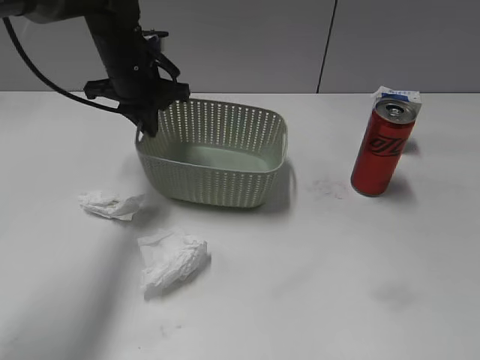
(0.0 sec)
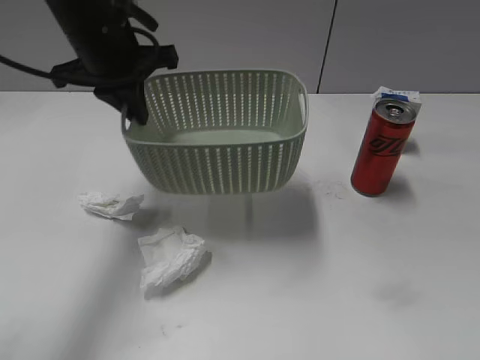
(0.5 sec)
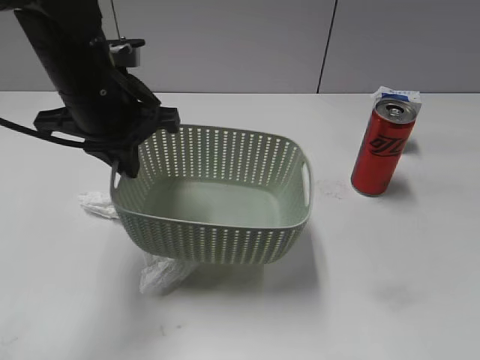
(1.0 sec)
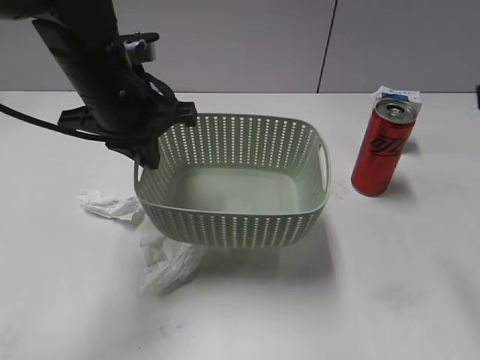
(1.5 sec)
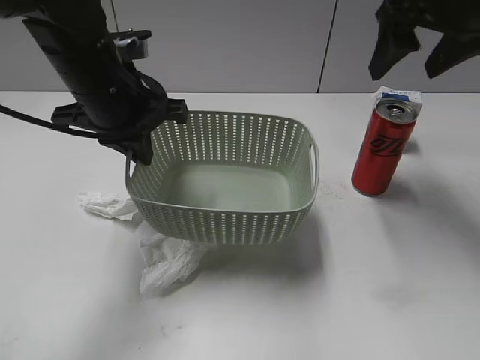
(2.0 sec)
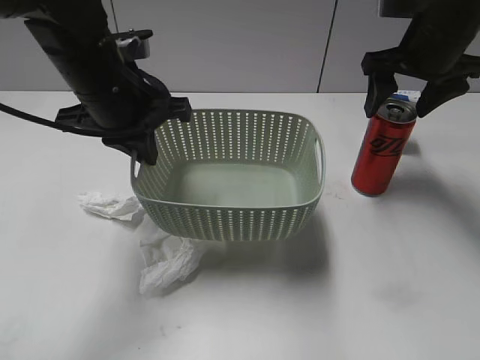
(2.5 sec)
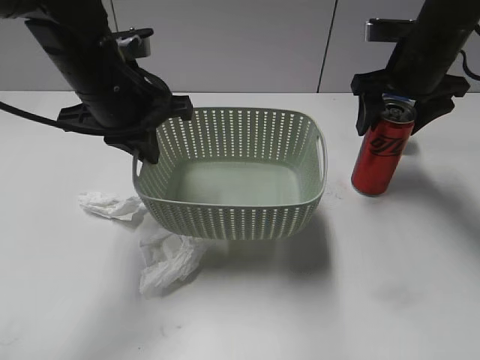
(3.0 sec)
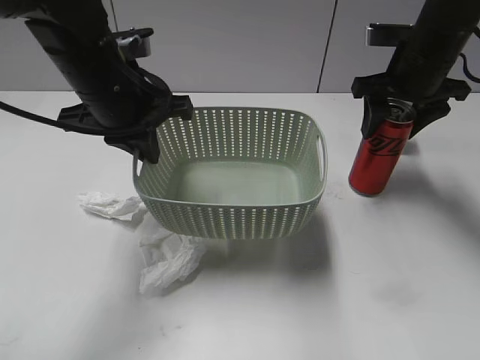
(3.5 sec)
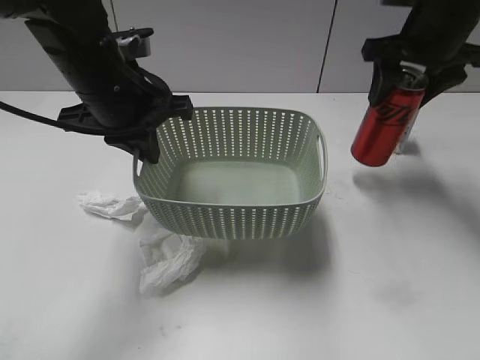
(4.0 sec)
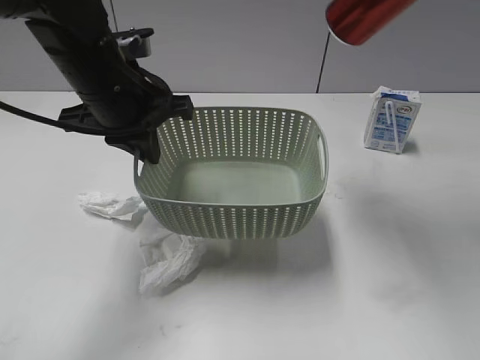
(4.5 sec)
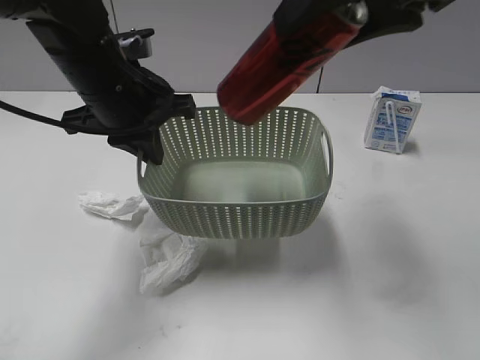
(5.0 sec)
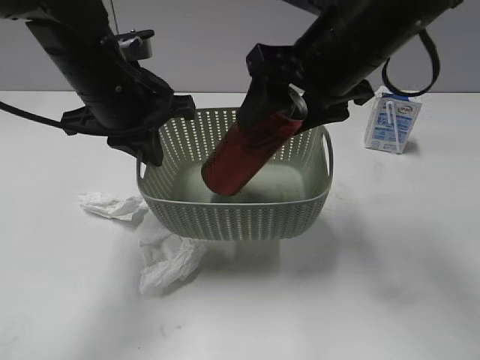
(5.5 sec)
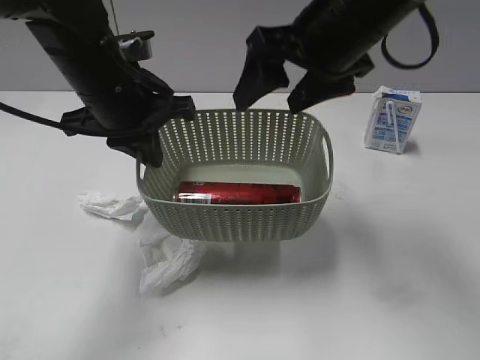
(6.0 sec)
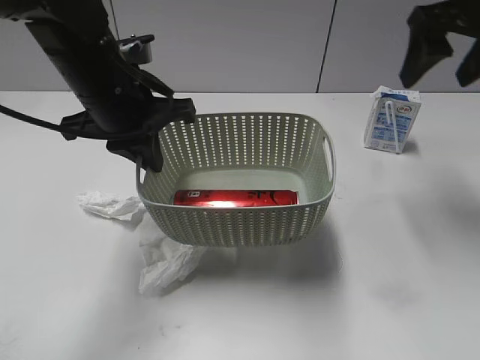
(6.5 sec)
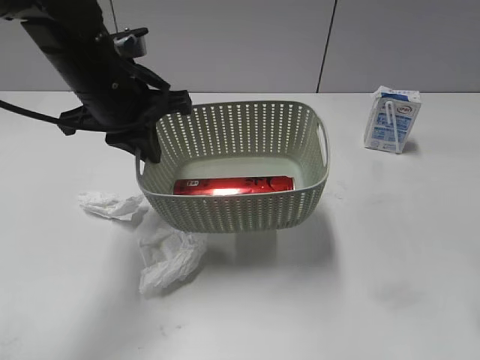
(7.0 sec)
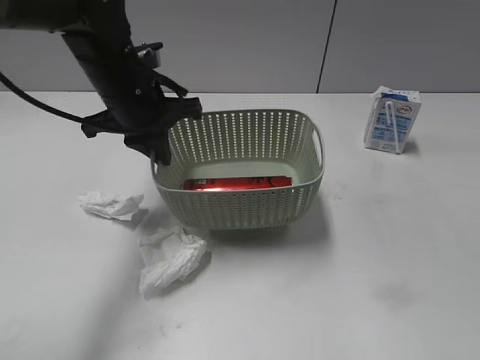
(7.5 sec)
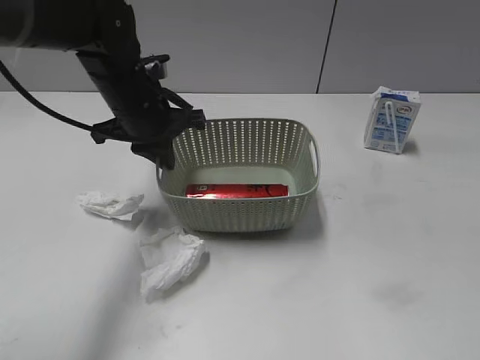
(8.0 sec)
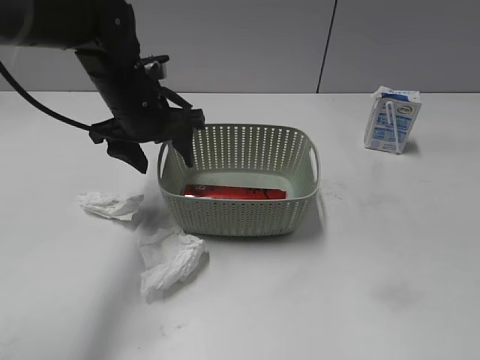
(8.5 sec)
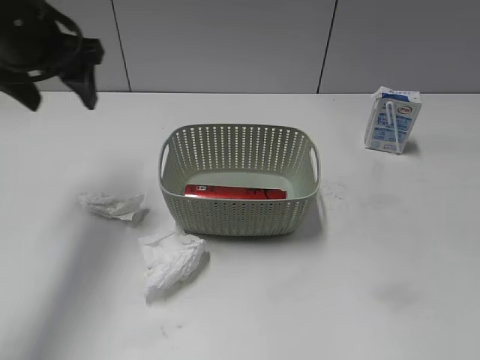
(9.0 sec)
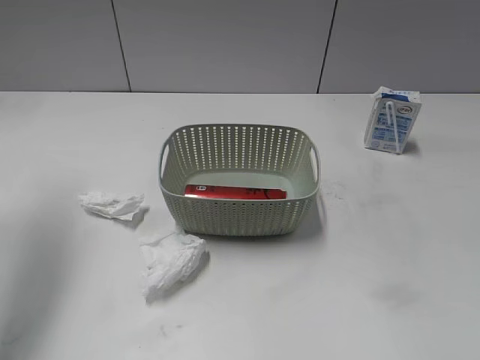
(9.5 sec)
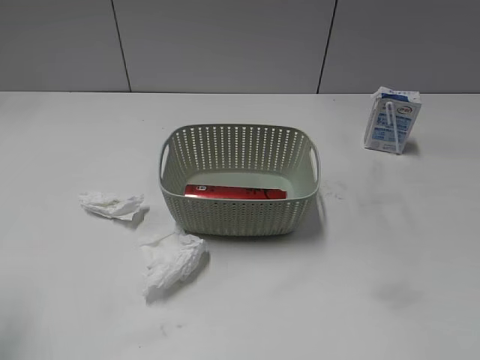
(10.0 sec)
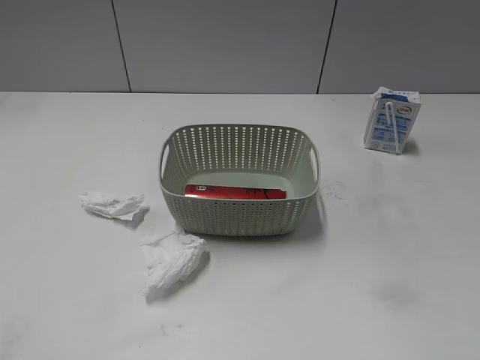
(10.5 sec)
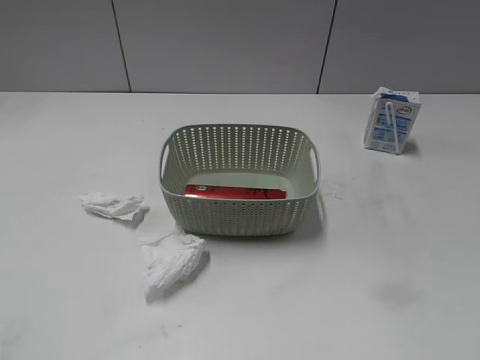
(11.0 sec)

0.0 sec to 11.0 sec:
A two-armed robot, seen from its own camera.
Step, 0.0 sec to 1.5 sec: Lift the basket with left gripper.
Step, 2.0 sec to 3.5 sec: Grasp the cola can with right gripper.
Step, 4.0 sec to 5.5 sec: Place the cola can in the basket with right gripper.
0.0 sec to 2.0 sec: The right gripper shifts some 35 cm forward, and opens. Meanwhile the left gripper travels backward by roughly 10 cm.
2.0 sec to 3.5 sec: The right gripper goes approximately 10 cm downward, and closes its fingers.
3.5 sec to 5.5 sec: The right gripper shifts about 15 cm to the left and backward, and goes upward and returns, some 20 cm each way.
5.5 sec to 7.5 sec: The left gripper ends up some 5 cm from where it was, while the right gripper moves backward and to the right, roughly 30 cm, and opens its fingers.
7.5 sec to 9.0 sec: The left gripper moves to the left and upward, roughly 15 cm, and opens.
9.0 sec to 11.0 sec: The left gripper travels backward by roughly 35 cm.

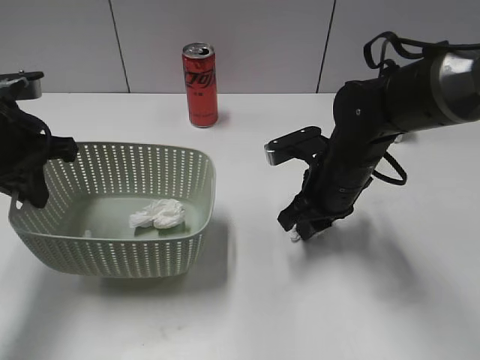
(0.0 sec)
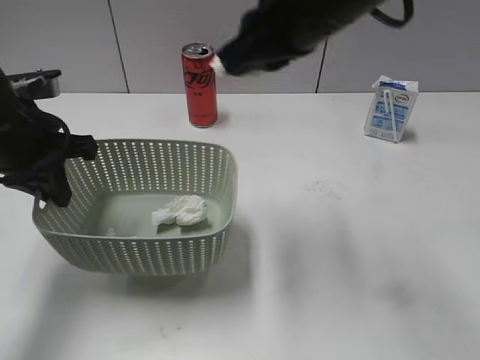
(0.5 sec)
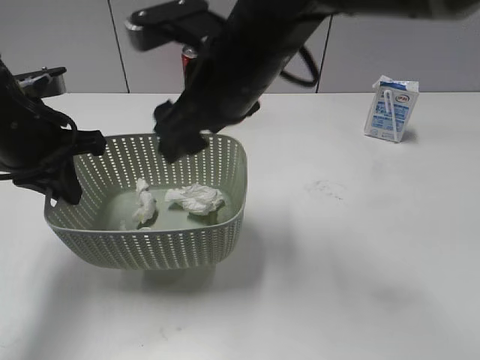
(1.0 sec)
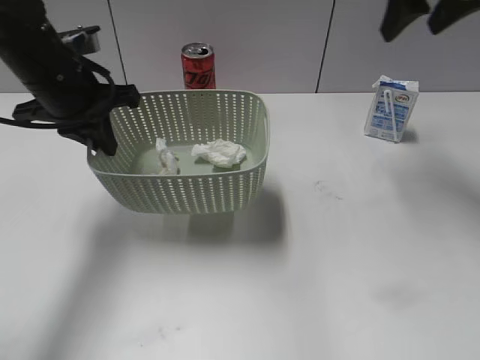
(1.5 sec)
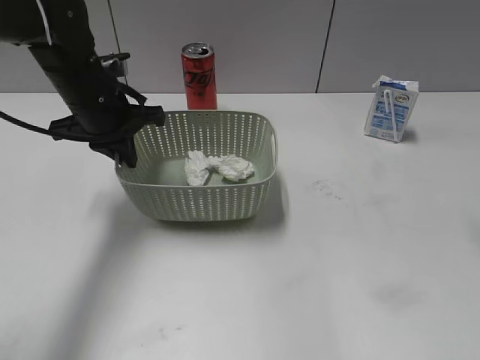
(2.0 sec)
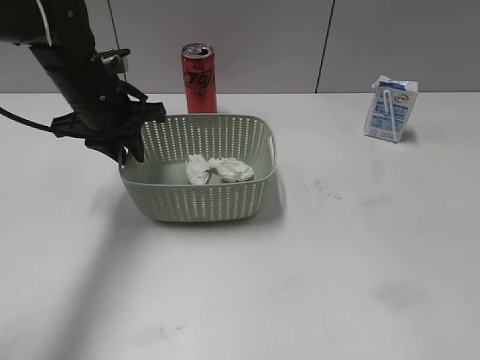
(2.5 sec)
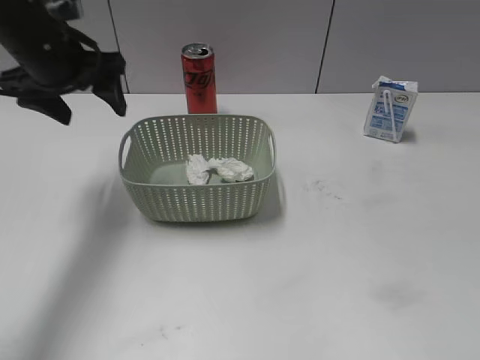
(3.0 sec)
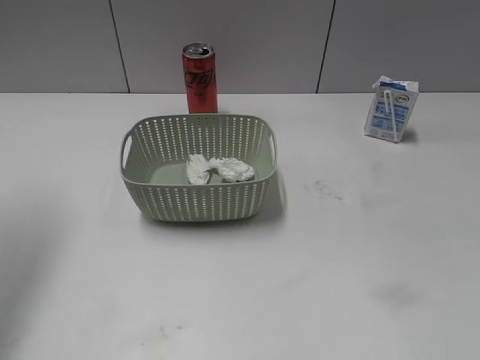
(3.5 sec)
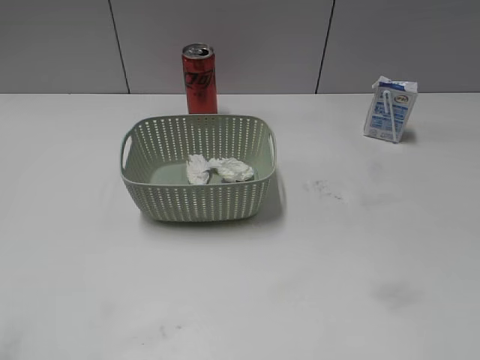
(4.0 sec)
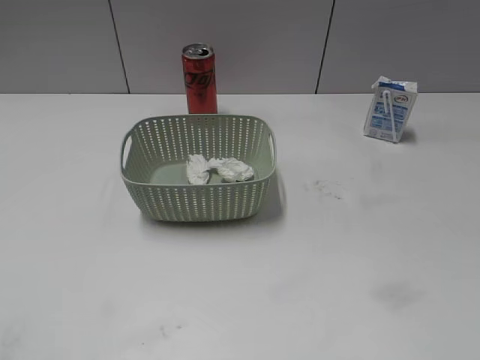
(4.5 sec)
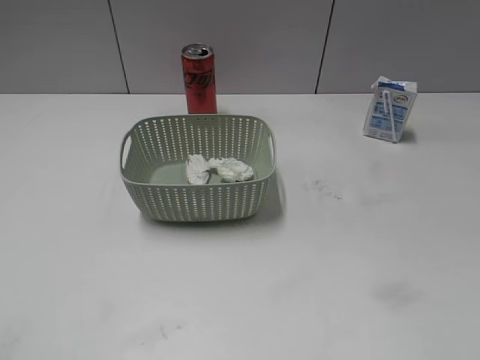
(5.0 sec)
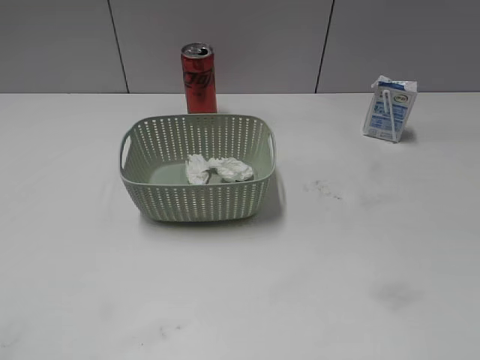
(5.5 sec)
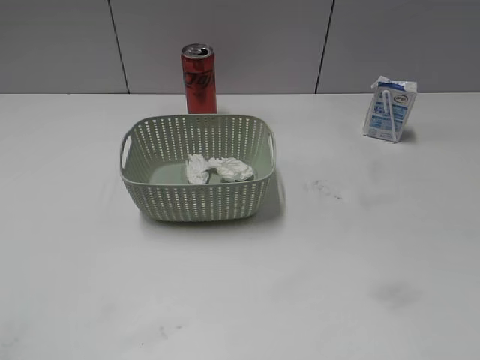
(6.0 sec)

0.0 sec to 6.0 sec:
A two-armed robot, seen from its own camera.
Step, 0.5 sec to 1.0 sec: Place the waste paper in the basket with right gripper.
Step, 1.5 sec to 3.0 sec: Place the basket on the table with left gripper.
0.0 sec to 2.0 sec: The left gripper goes approximately 10 cm forward and to the right; the right gripper moves up and down over approximately 30 cm, changing direction 2 times, and opens up.
2.0 sec to 4.0 sec: The right gripper travels backward and downward by some 30 cm, while the left gripper goes some 35 cm backward, to the left and upward, and opens its fingers.
